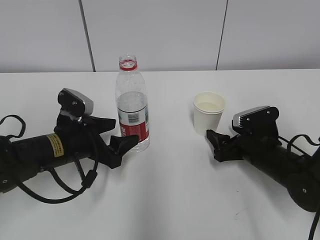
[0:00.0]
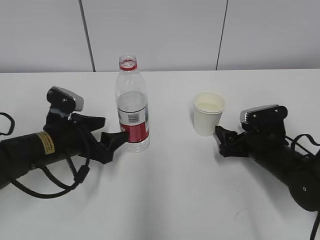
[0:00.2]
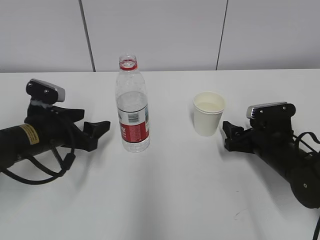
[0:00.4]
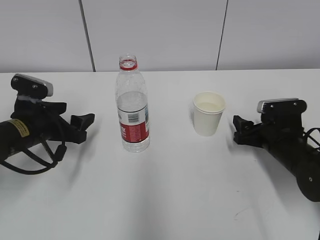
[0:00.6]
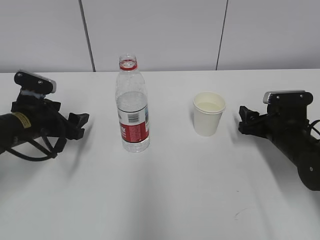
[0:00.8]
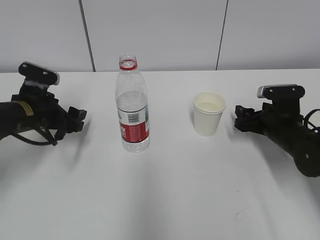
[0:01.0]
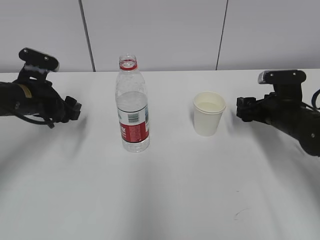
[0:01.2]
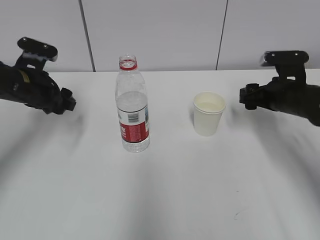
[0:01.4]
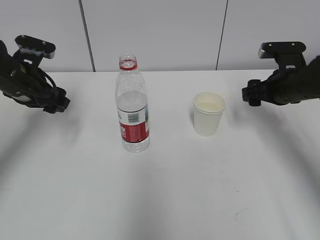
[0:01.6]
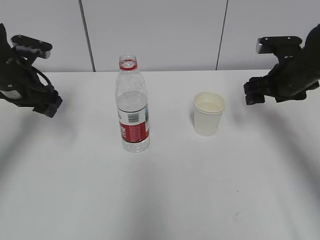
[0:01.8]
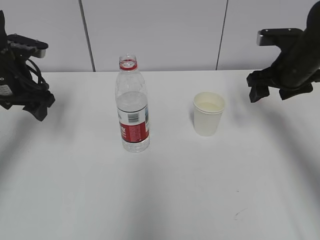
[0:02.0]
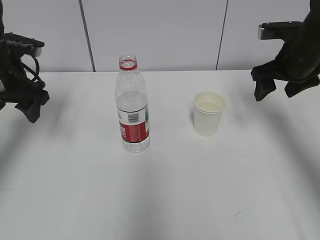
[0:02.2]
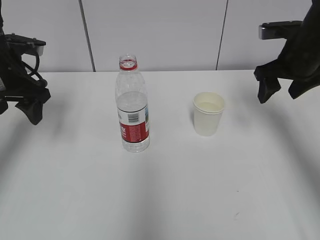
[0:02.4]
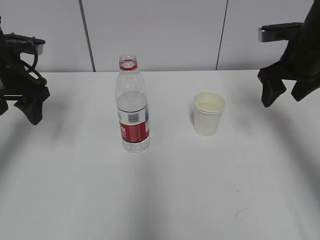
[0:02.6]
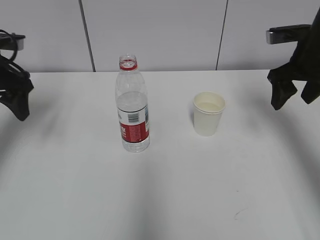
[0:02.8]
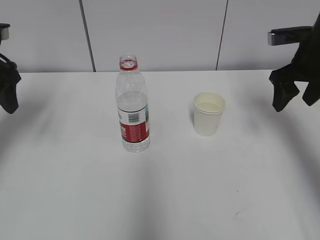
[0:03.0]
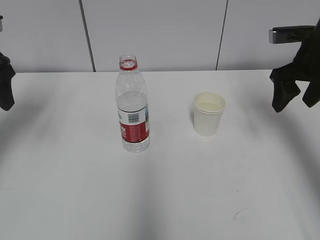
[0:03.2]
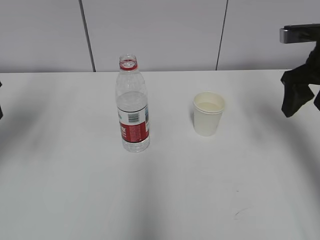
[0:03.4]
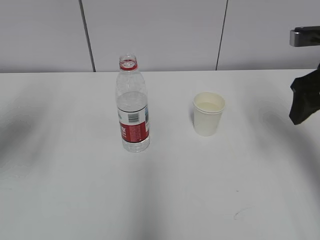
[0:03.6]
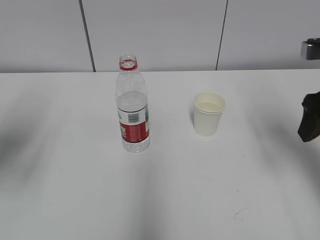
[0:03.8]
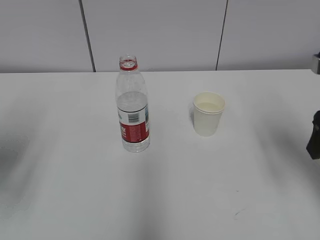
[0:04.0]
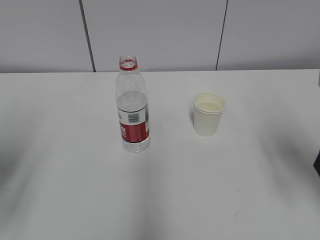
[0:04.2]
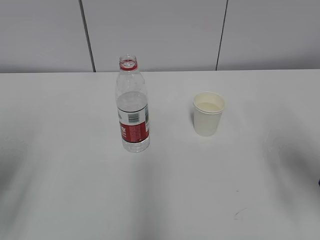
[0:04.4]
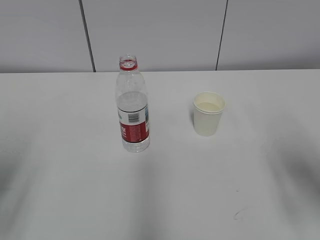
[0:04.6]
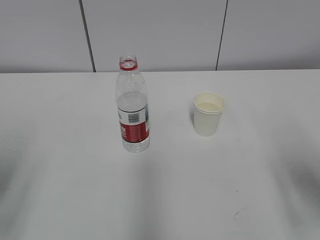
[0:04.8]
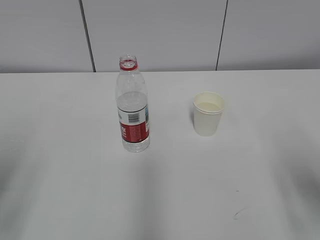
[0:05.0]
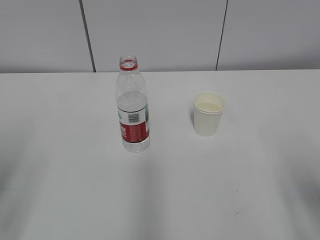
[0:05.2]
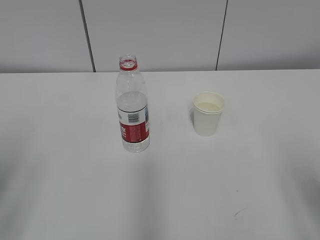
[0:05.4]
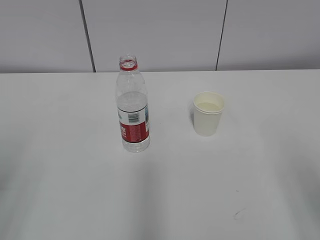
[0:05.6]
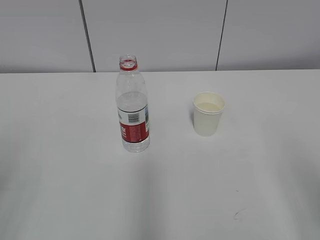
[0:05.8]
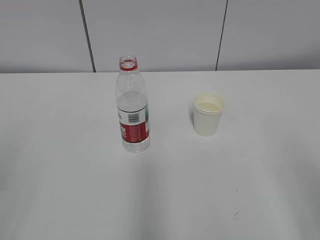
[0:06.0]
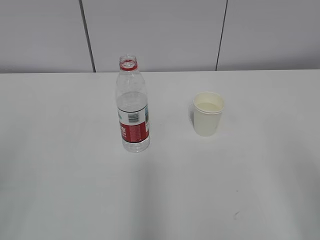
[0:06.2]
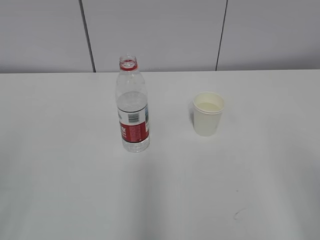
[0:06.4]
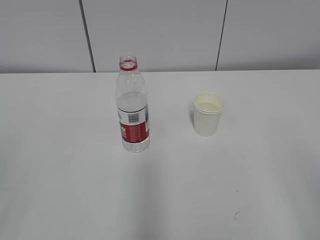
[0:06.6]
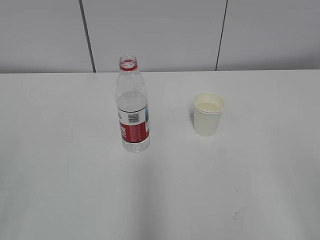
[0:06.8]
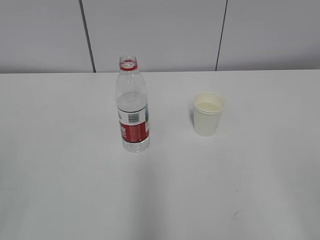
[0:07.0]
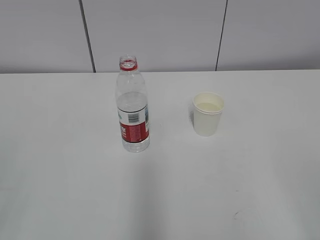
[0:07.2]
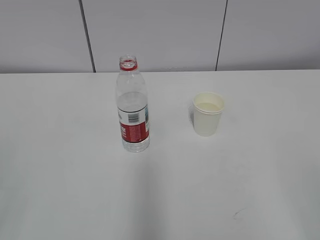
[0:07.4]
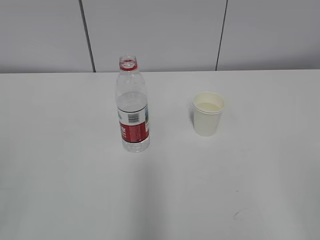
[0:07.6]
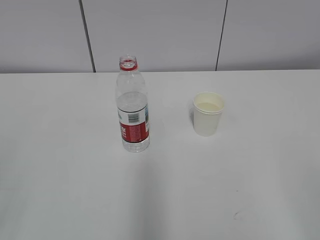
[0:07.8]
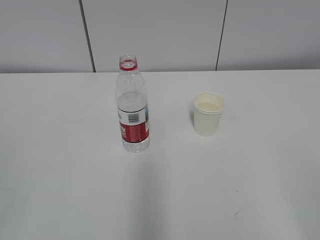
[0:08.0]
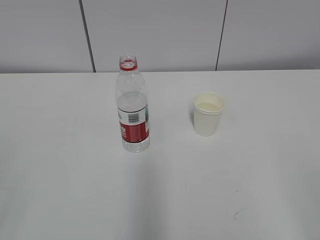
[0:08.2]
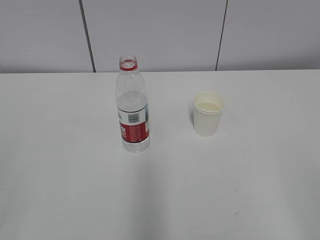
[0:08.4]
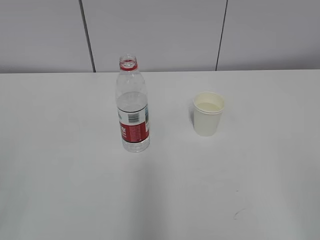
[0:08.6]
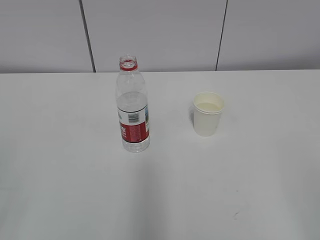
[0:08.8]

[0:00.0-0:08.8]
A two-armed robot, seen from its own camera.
0:00.0 to 0:01.4: The left gripper moves to the left, forward and upward, about 15 cm. Meanwhile the right gripper heads upward, forward and to the right, covering roughly 10 cm.
0:01.4 to 0:03.0: The left gripper travels upward and to the left by approximately 10 cm. Meanwhile the right gripper travels upward by approximately 10 cm.
0:03.0 to 0:04.4: Both grippers move backward, roughly 20 cm.
0:04.4 to 0:05.8: The right gripper is displaced backward by roughly 10 cm.
0:07.4 to 0:08.8: Both grippers stay about where they are.
